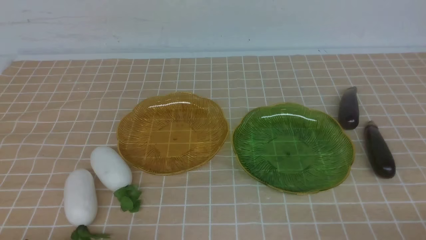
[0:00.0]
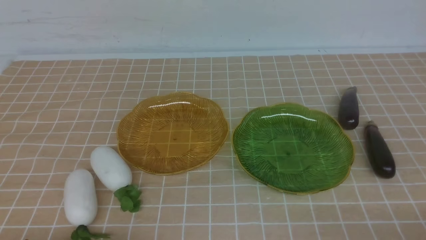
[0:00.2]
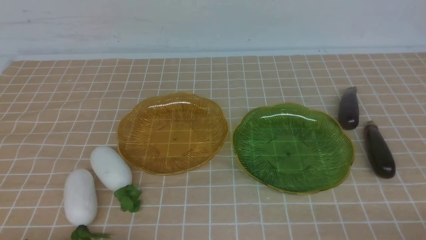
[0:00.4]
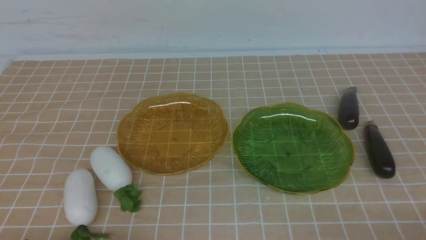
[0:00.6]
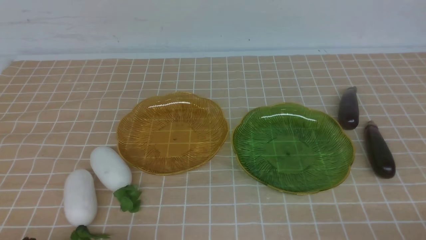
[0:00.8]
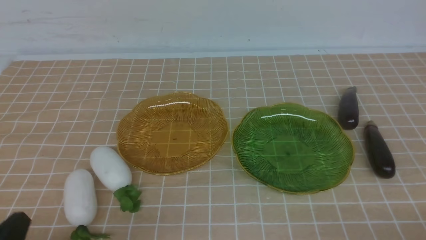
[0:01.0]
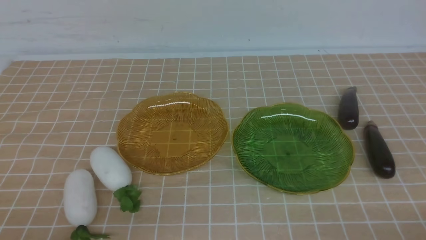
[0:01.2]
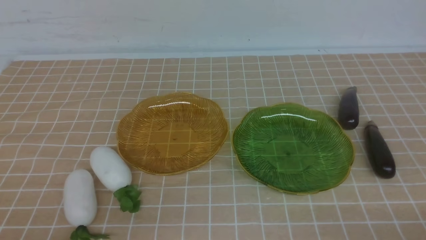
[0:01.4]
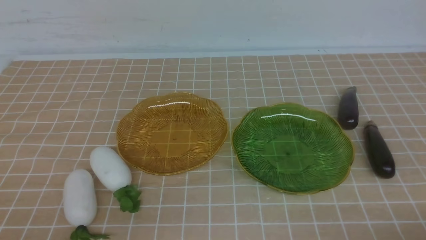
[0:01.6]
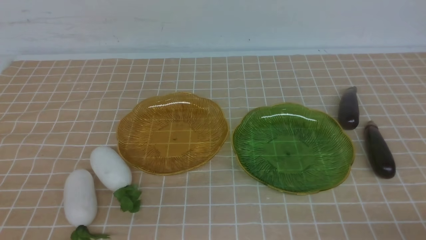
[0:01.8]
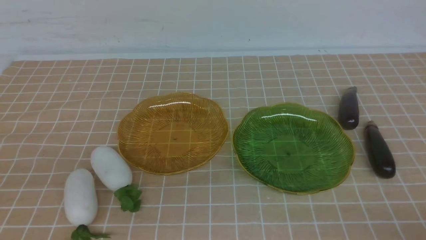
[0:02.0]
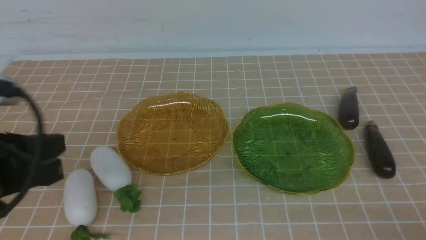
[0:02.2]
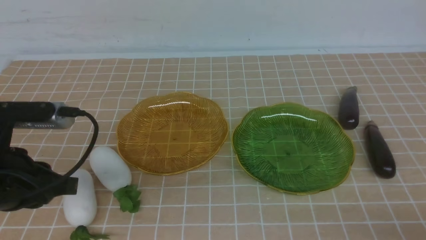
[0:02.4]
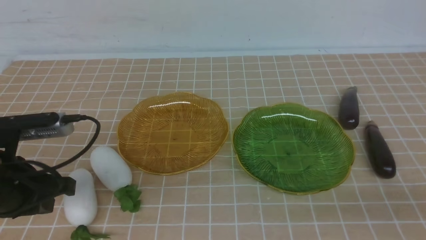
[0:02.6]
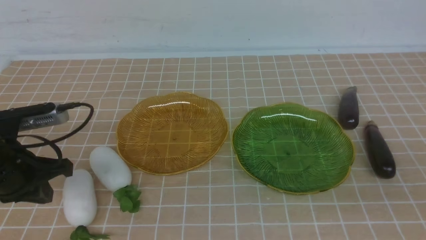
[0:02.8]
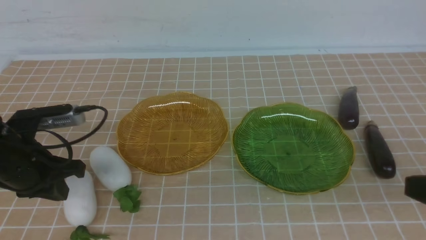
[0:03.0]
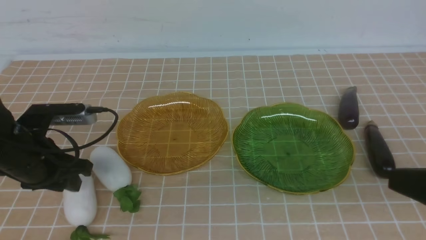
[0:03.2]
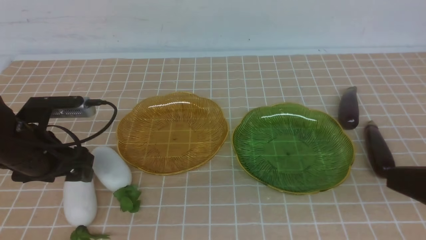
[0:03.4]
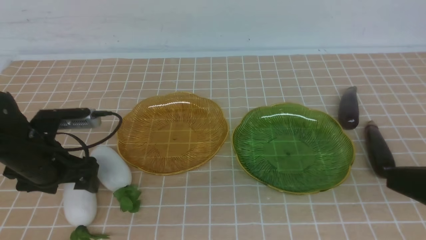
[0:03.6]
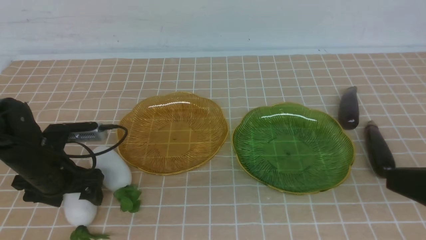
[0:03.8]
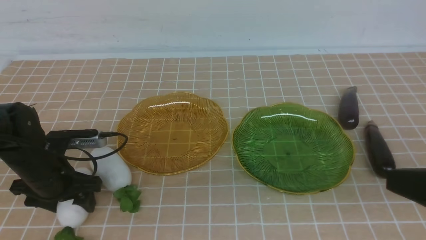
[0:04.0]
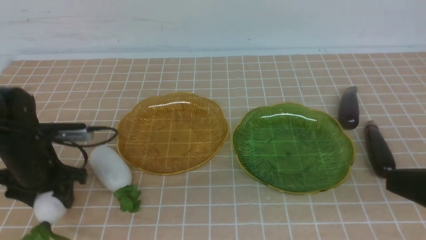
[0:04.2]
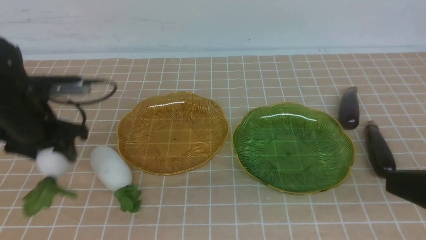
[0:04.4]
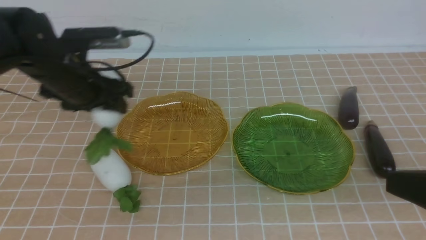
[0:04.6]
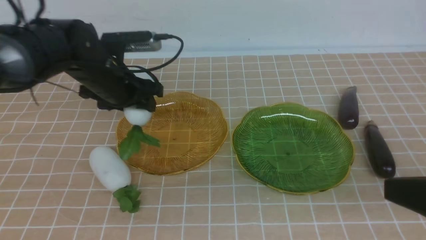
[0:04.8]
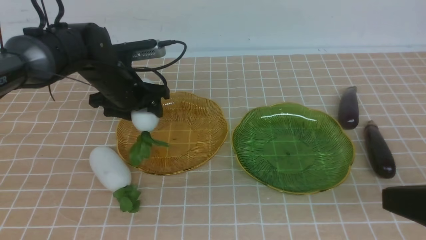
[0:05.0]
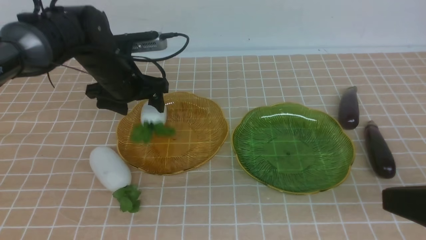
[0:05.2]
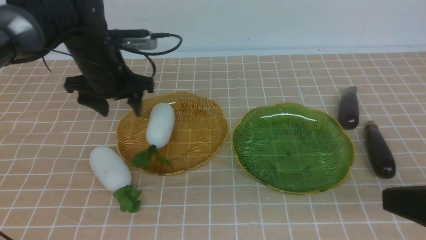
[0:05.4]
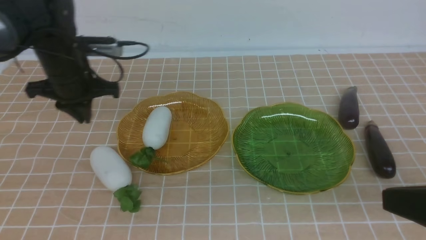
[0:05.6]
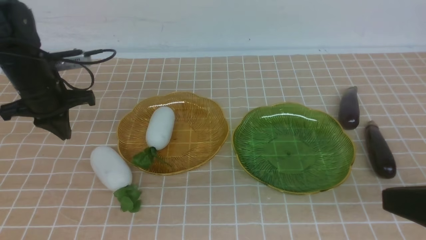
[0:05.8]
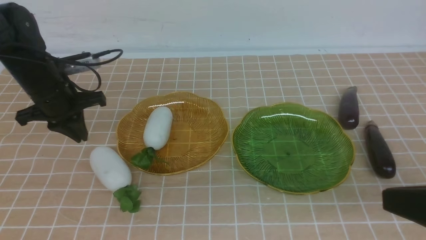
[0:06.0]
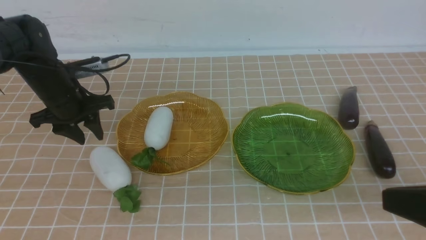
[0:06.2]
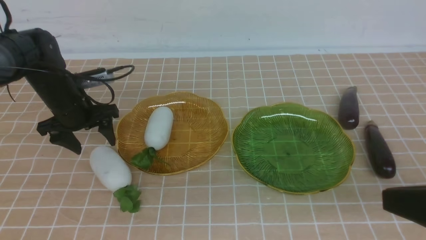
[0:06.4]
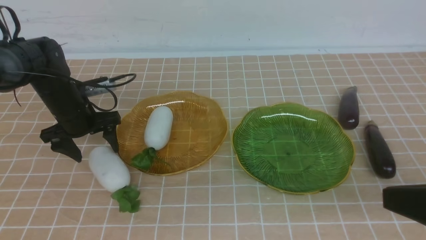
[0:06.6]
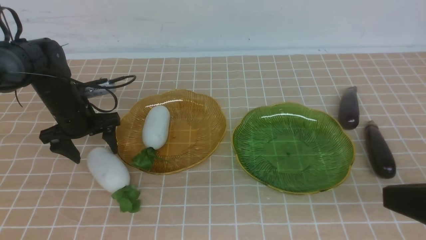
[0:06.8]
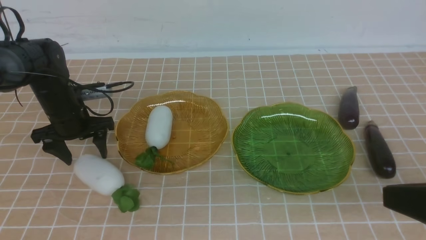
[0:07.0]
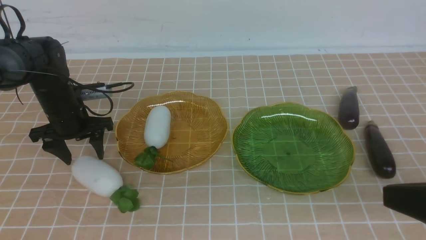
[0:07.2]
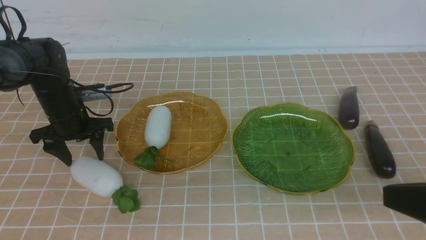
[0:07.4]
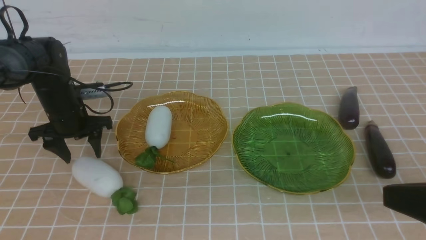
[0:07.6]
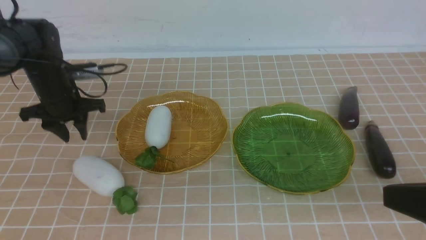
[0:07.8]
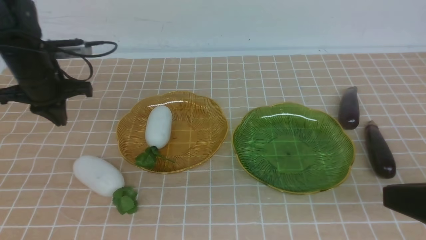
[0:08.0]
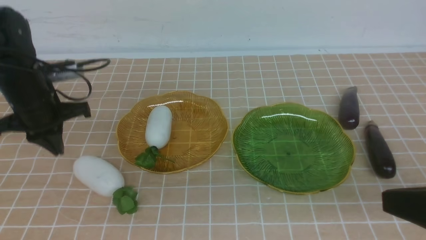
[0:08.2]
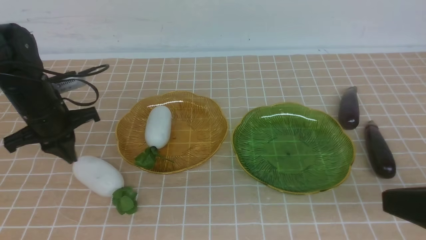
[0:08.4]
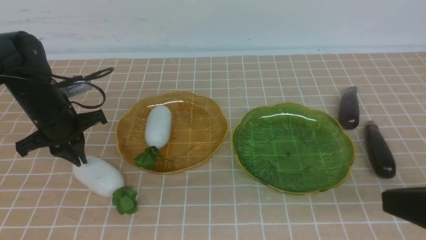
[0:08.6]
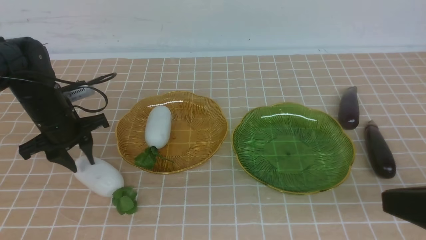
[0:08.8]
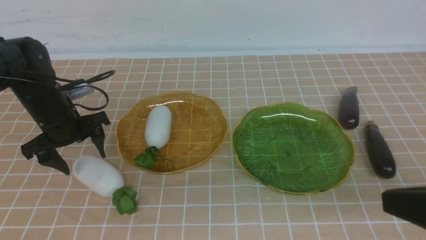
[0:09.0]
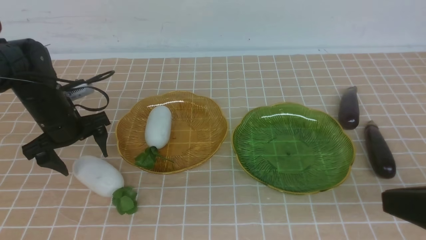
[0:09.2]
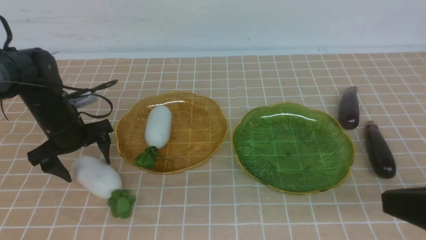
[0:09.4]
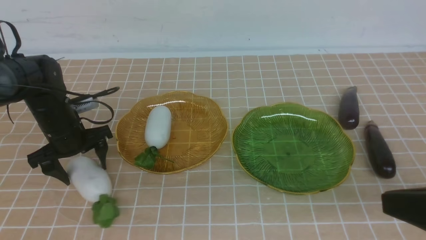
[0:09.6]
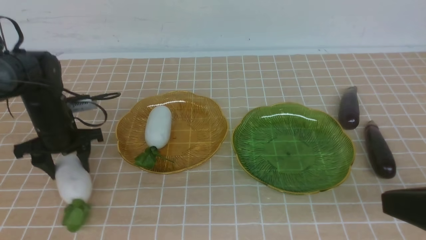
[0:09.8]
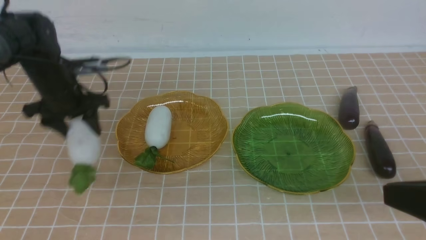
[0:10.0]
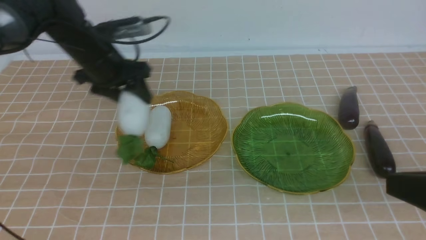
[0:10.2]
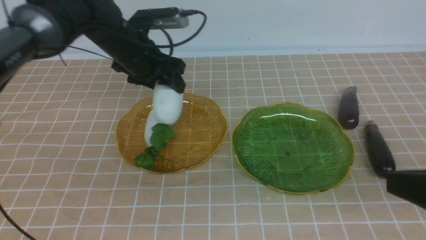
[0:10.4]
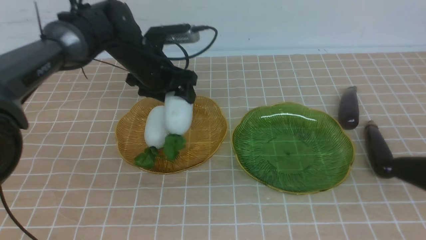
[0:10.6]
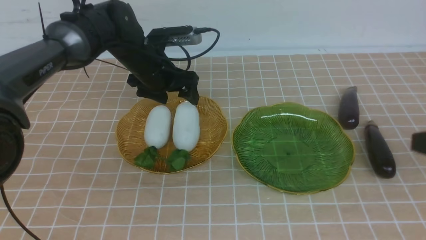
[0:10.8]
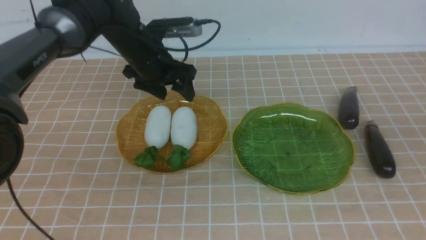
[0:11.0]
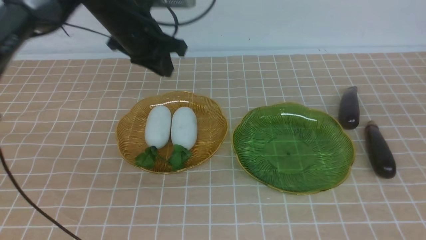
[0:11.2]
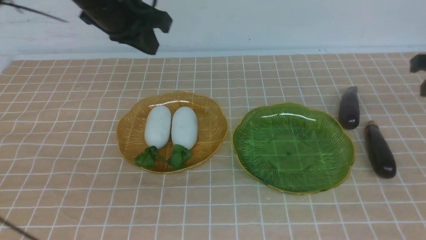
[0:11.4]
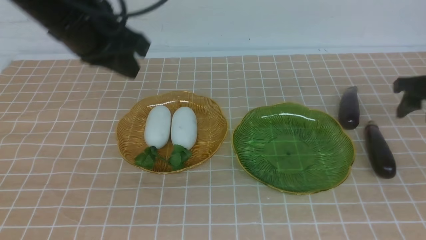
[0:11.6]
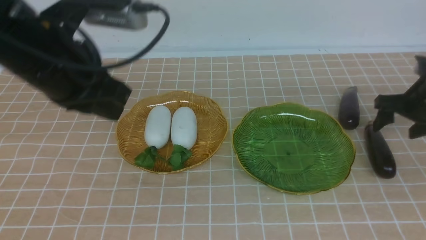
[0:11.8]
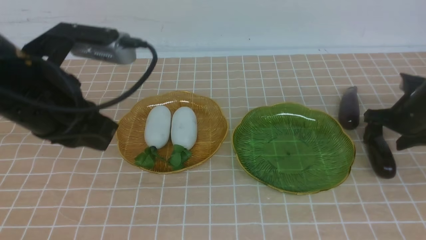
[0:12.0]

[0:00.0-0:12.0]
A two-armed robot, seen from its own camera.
Step, 0:00.0 to 0:11.0: use the left arm to grab a radish and put it into the left plate.
0:01.6 to 0:03.0: The left gripper goes approximately 20 cm forward. The right gripper goes some 15 cm upward.
0:03.0 to 0:04.4: The left gripper is displaced forward by approximately 10 cm, and opens its fingers.
0:04.4 to 0:06.0: The left gripper goes to the right and returns, approximately 5 cm each way, and closes.
0:06.0 to 0:07.6: The left gripper goes about 5 cm downward, and opens up.
0:07.6 to 0:09.0: The left gripper closes, then opens again.
0:09.0 to 0:10.4: The left gripper moves to the right, forward and upward, approximately 15 cm, and opens, then closes again.
0:10.4 to 0:12.0: The right gripper moves forward and downward, some 35 cm, and opens. The left gripper heads backward and upward, covering roughly 20 cm, and closes up.

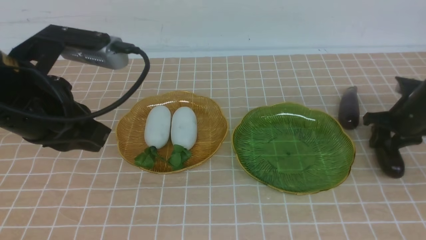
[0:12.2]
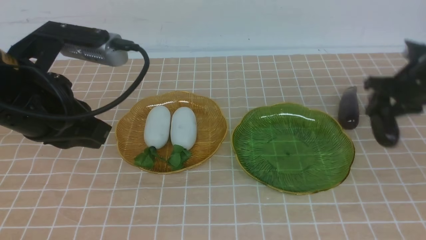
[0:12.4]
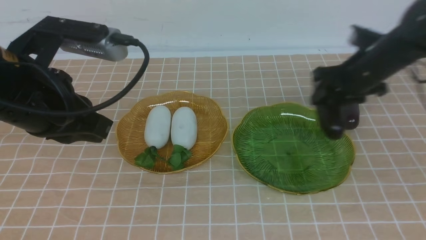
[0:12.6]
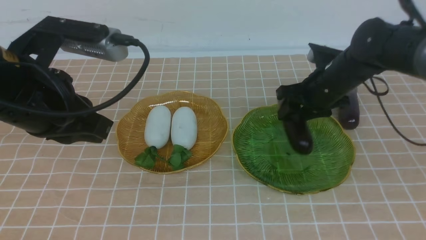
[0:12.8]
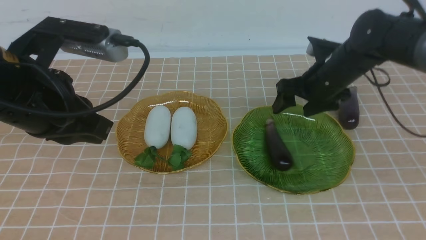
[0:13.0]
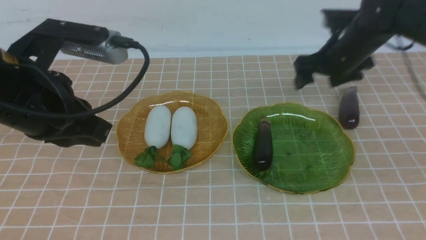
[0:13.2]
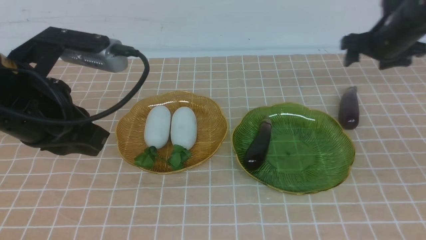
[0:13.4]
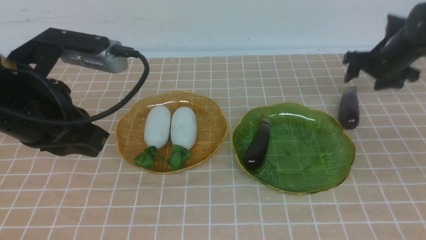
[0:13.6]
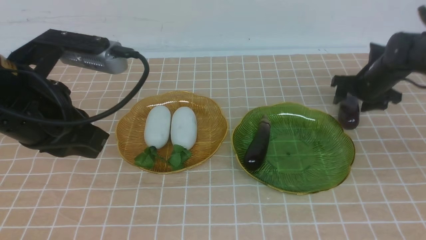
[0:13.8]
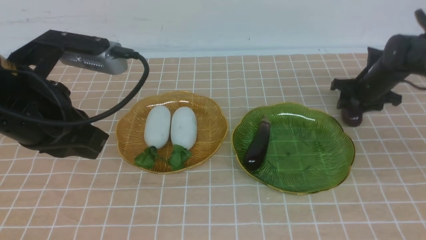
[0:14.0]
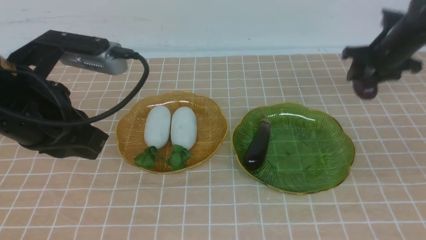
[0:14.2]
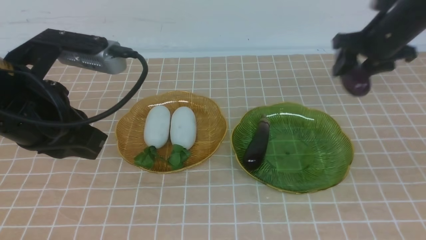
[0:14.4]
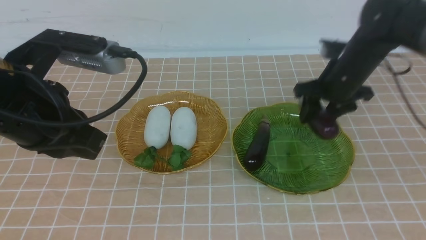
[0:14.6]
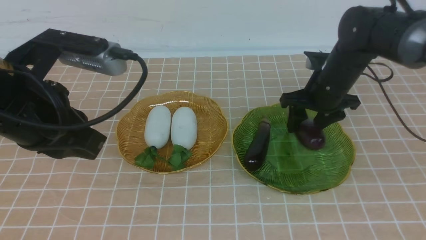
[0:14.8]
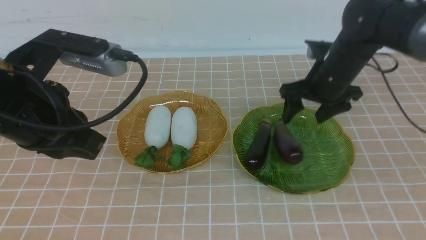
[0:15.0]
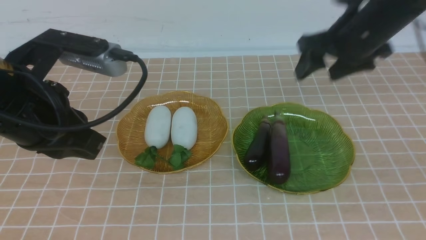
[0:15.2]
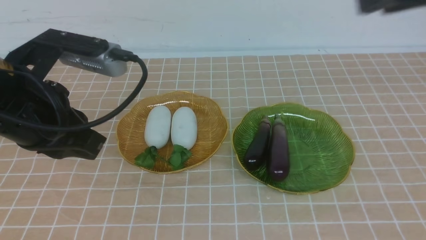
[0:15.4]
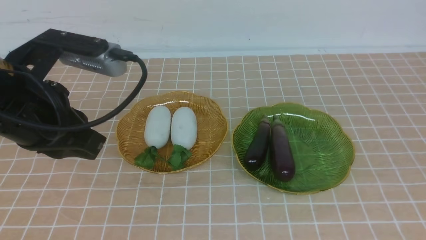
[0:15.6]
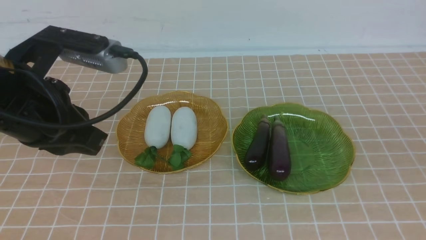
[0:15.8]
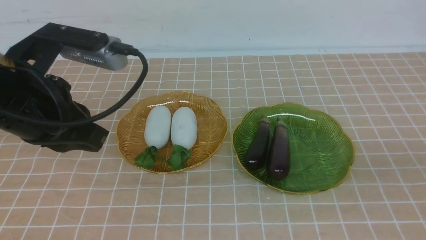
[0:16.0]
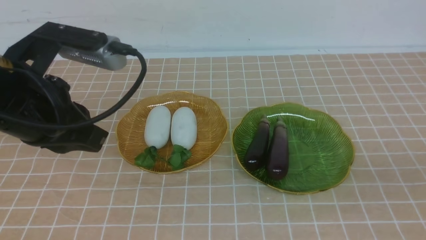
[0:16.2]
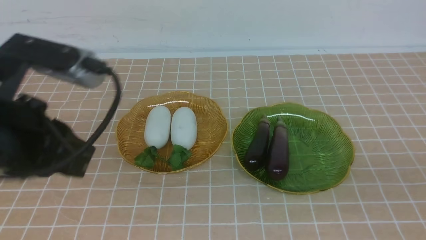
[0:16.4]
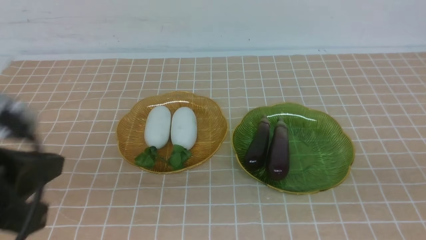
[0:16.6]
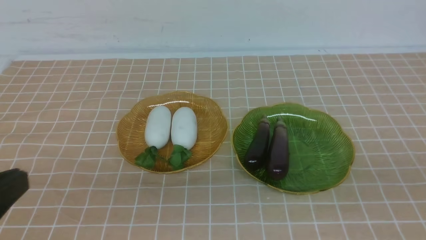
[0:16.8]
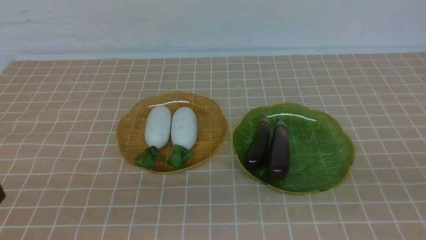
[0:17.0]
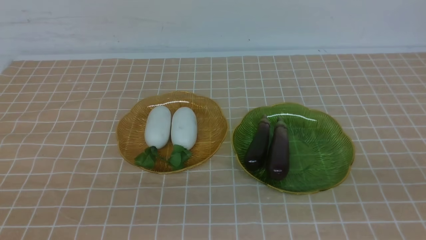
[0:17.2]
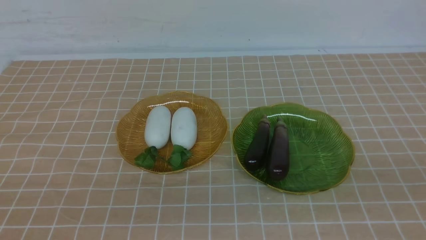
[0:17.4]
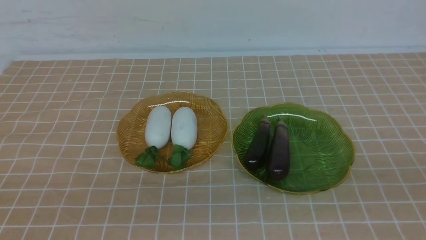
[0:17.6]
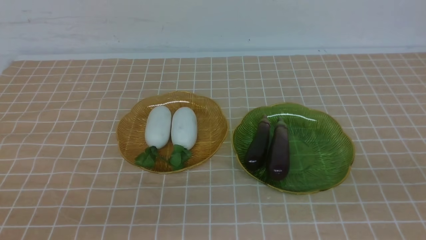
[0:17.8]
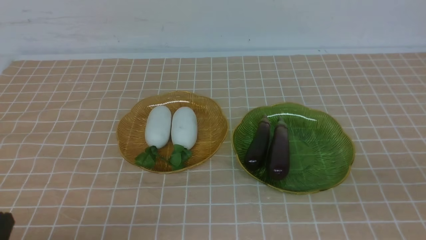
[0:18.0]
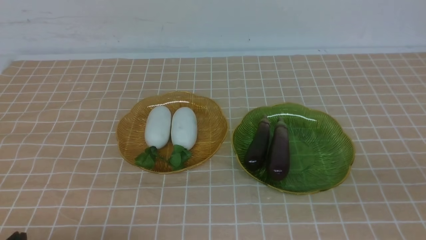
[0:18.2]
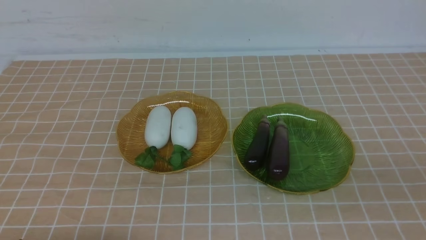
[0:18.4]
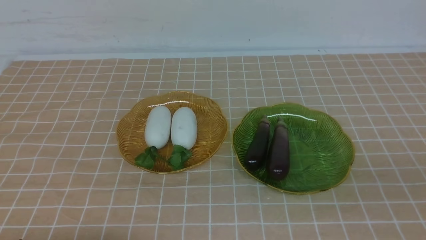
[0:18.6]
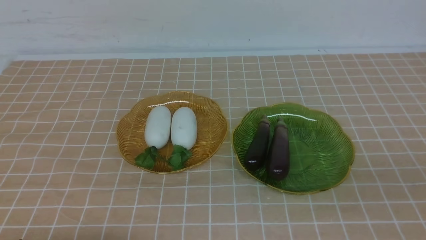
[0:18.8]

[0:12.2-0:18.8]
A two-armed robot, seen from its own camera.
Step, 0:13.2 to 0:15.0: use the right arm to grab an eggplant and put it into the right plate.
0:12.2 to 0:13.8: The right gripper is displaced forward by approximately 10 cm, and goes to the left and returns, approximately 15 cm each way.
0:13.8 to 0:15.4: The right gripper shifts approximately 40 cm backward and upward, and closes up.
0:15.4 to 0:17.2: The left gripper travels backward by approximately 20 cm. Meanwhile the right gripper travels downward and backward by about 20 cm.
